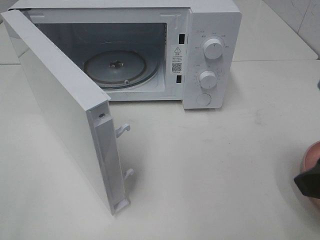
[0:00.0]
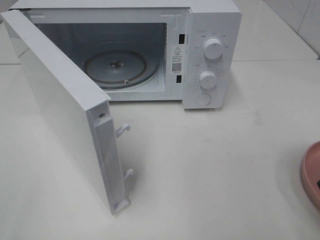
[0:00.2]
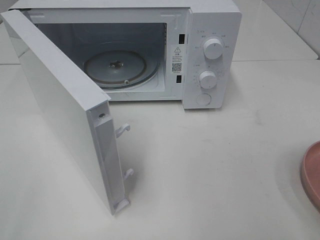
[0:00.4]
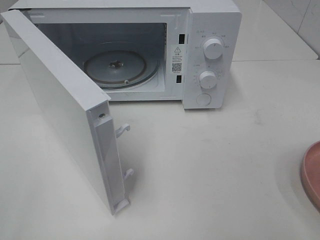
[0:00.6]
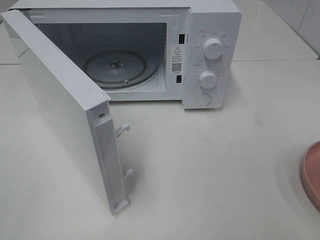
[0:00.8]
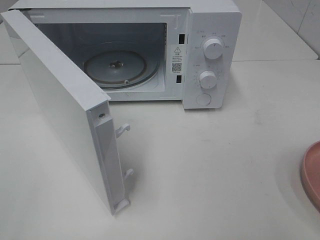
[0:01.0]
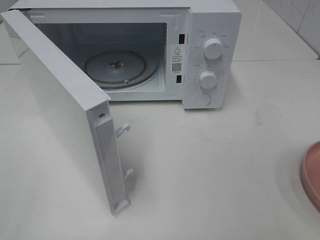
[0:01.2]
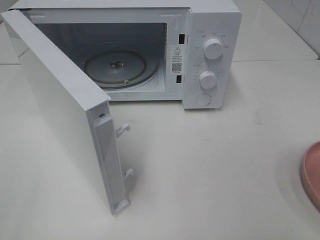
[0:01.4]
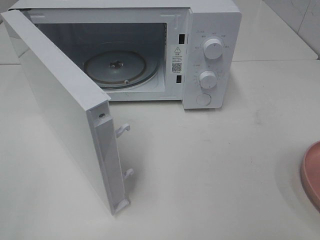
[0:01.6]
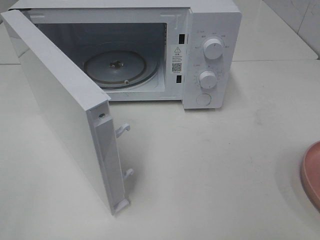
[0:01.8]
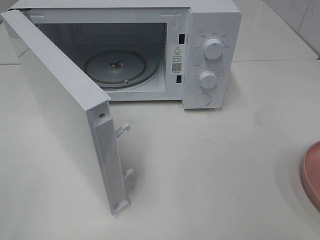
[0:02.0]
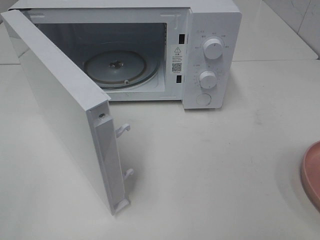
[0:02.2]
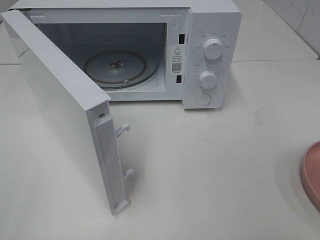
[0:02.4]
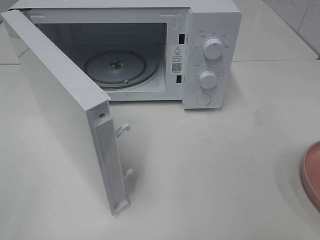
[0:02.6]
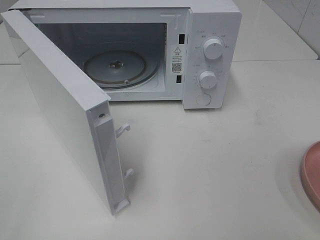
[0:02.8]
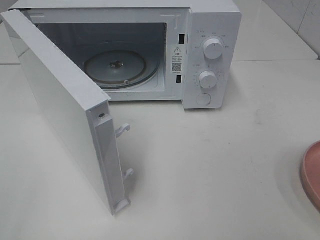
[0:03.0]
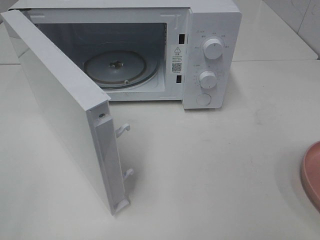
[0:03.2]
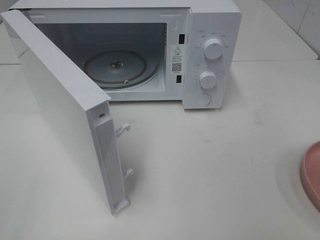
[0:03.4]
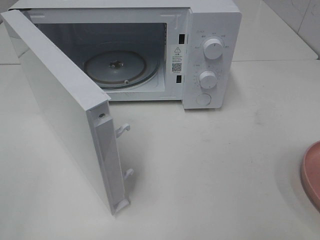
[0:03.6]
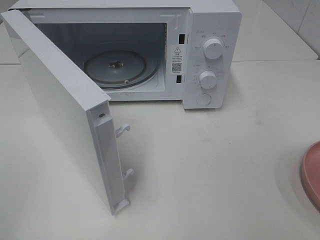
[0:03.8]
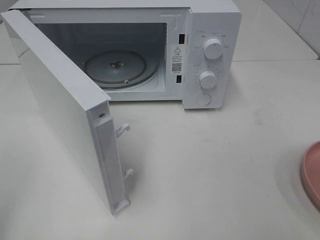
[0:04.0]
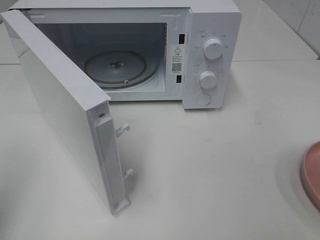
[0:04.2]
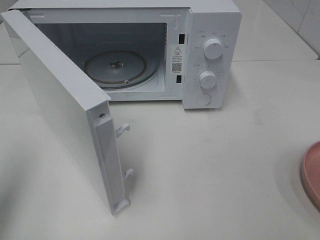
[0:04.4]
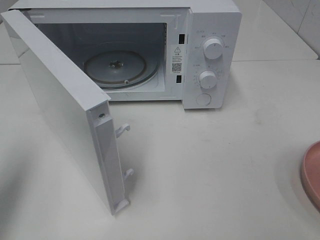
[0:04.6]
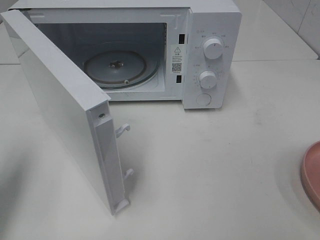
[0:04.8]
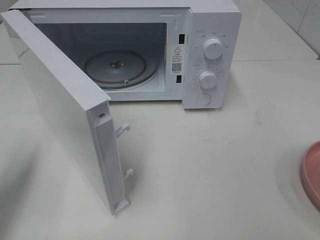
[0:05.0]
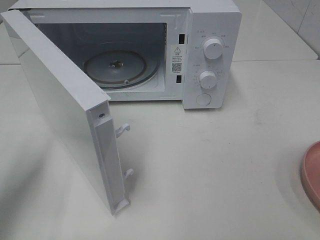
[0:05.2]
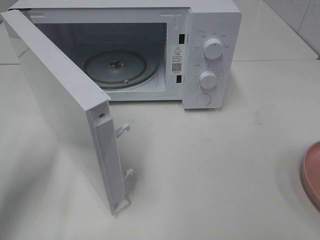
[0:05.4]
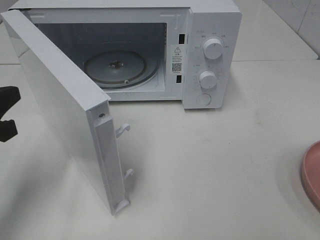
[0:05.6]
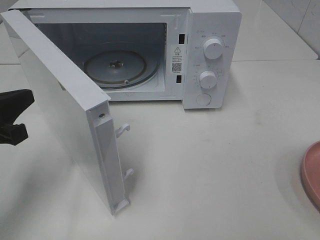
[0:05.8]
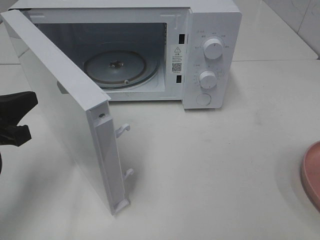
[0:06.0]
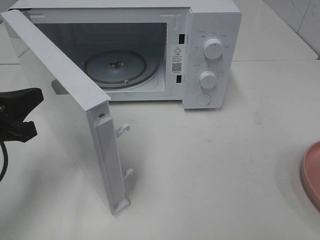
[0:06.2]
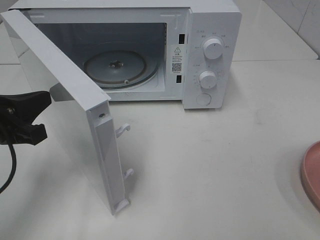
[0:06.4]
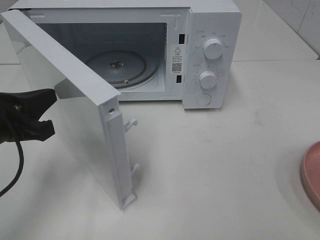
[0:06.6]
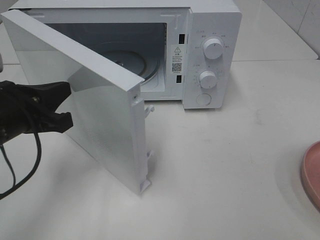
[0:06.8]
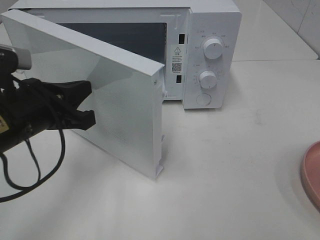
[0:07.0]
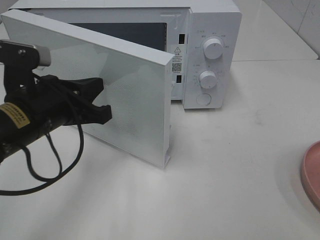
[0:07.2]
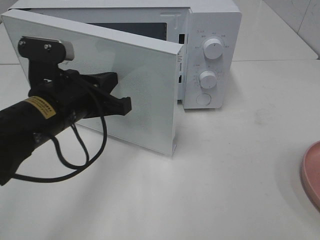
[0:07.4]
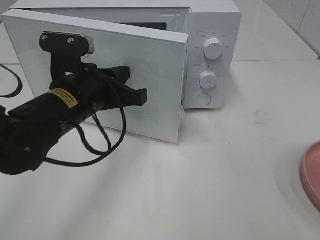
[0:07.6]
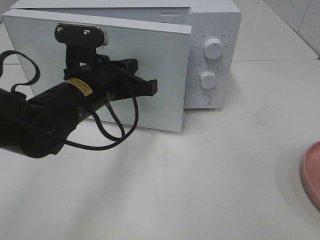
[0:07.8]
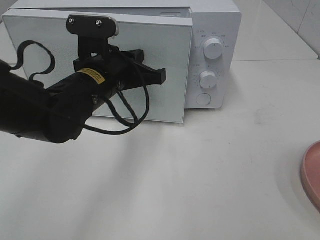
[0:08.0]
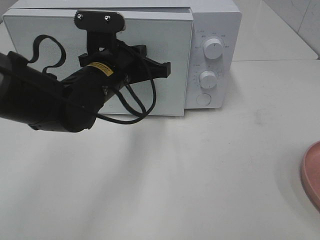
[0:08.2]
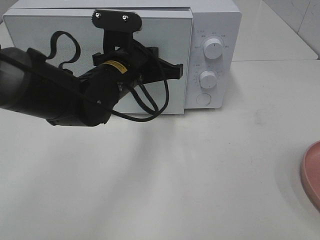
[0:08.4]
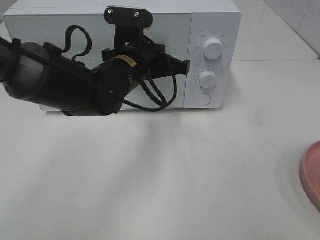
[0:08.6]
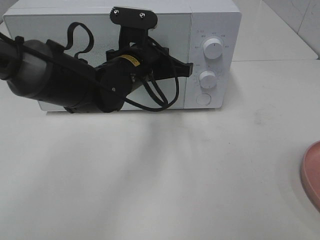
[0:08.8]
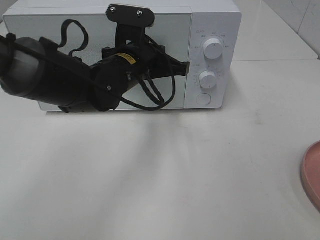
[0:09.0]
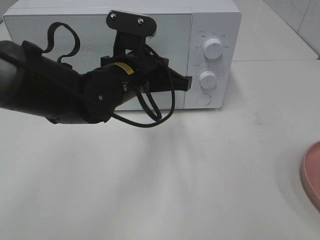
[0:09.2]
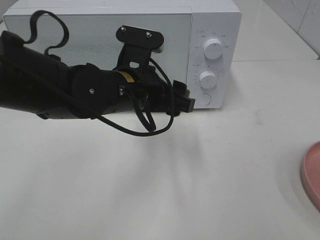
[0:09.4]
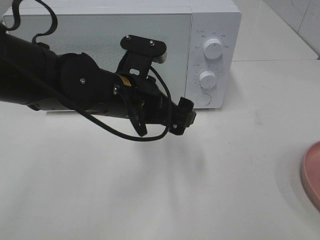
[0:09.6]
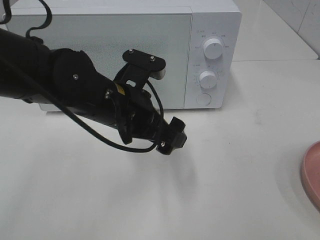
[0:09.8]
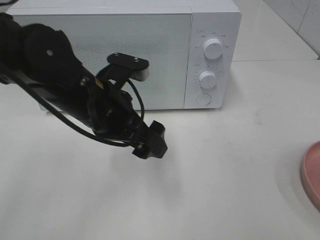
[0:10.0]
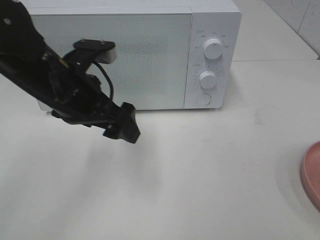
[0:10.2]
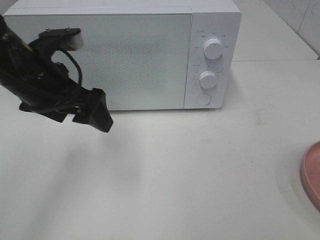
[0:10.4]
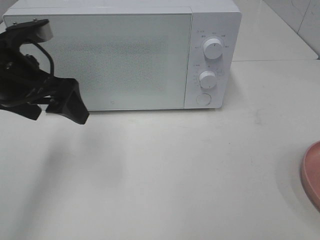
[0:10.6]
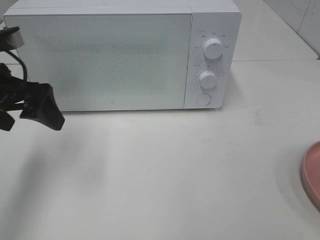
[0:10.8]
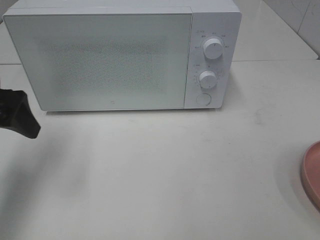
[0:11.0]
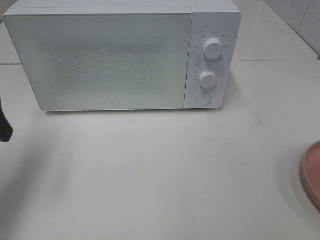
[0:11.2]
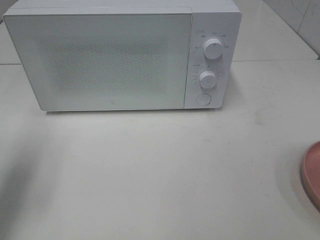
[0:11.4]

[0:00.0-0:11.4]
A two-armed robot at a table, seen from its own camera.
Task of the whole recording: Heat the burger.
Step, 0:00.0 to 0:09.0: Left hand: close the microwave door.
0:00.0 to 0:01.4: The right gripper heads backward and to the right, covering approximately 15 cm.
0:01.4 to 0:02.8: Both grippers stay about where they are.
0:04.2 to 0:05.6: The left gripper shifts roughly 15 cm downward, forward and to the right.
0:05.6 to 0:07.2: The left gripper is displaced to the right by roughly 10 cm.
0:07.2 to 0:08.6: The left gripper heads to the right and forward, covering some 15 cm.
0:08.6 to 0:10.0: The left gripper moves backward, roughly 10 cm, and opens.
0:10.0 to 0:11.4: The left gripper heads to the left, covering some 20 cm.

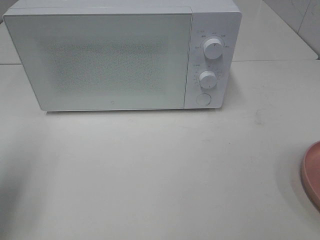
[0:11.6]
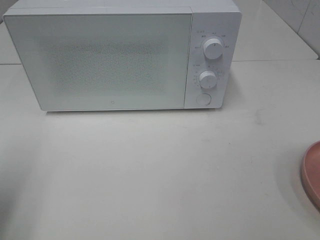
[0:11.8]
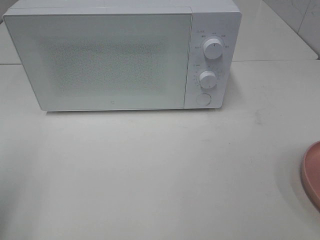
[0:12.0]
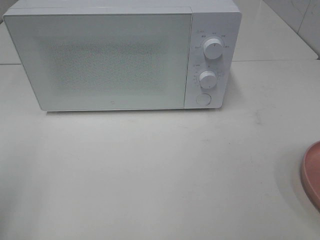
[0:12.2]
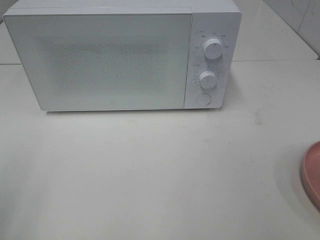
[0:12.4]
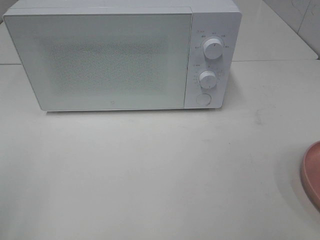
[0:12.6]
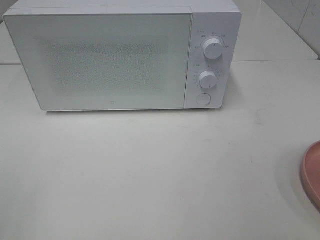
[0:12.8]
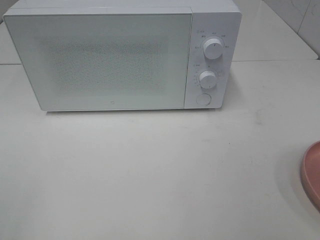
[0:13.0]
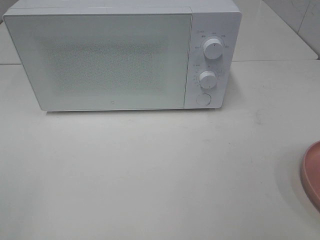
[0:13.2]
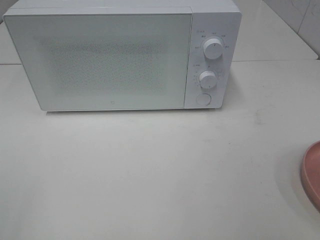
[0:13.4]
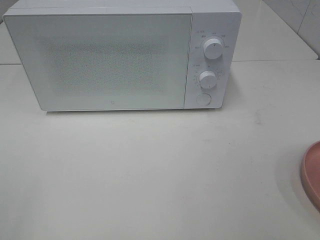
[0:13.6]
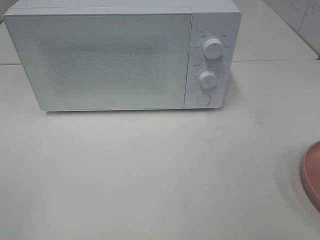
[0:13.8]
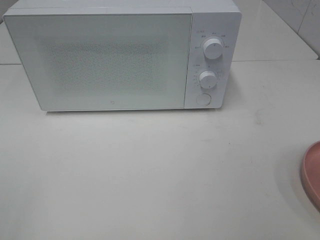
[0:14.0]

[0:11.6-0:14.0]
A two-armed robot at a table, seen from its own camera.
Task of the whole recording: Heat the burger.
0:11.6 to 0:12.8: The left gripper is displaced backward by some 15 cm.

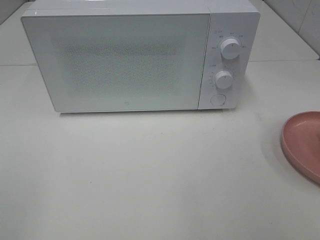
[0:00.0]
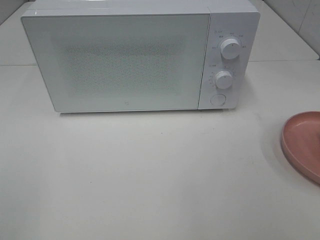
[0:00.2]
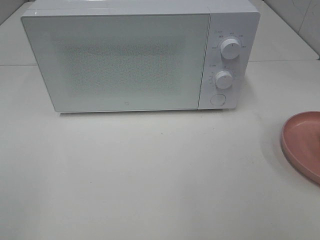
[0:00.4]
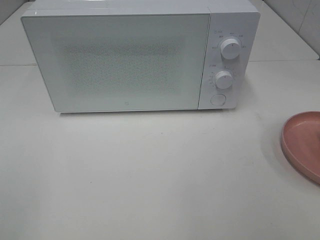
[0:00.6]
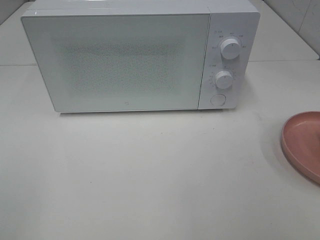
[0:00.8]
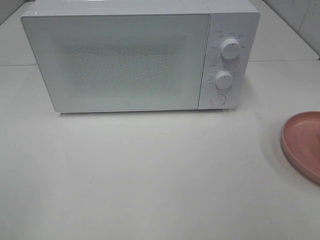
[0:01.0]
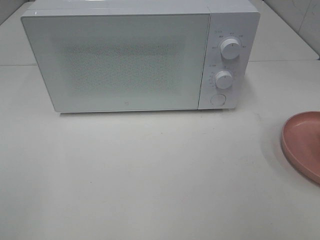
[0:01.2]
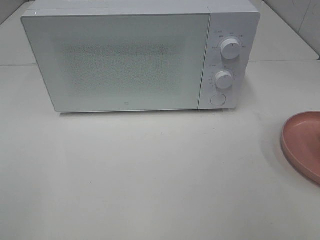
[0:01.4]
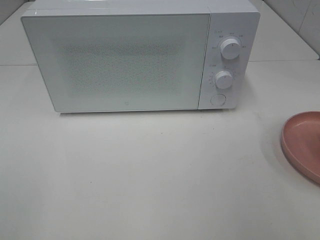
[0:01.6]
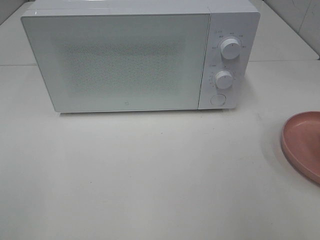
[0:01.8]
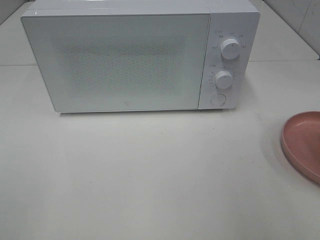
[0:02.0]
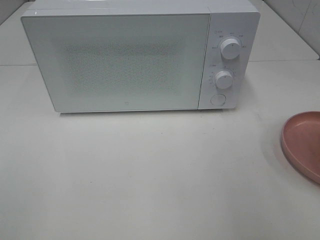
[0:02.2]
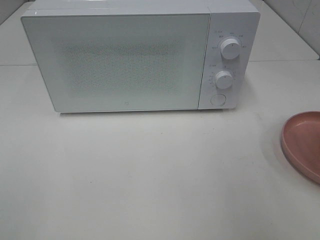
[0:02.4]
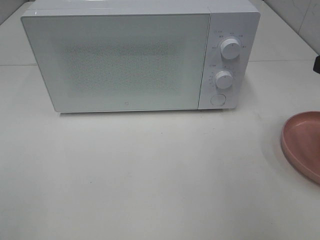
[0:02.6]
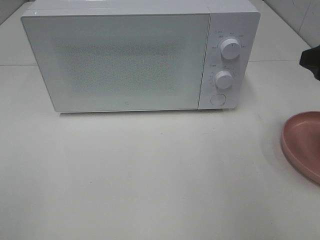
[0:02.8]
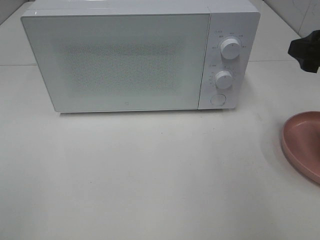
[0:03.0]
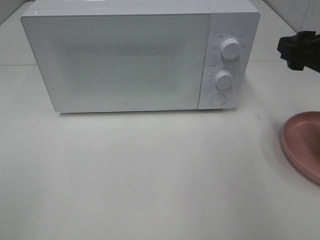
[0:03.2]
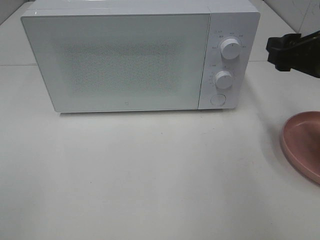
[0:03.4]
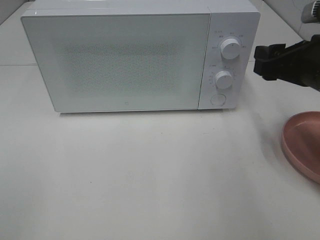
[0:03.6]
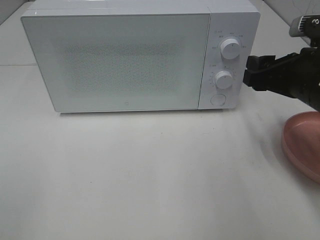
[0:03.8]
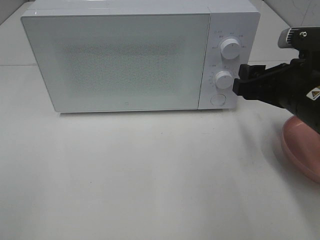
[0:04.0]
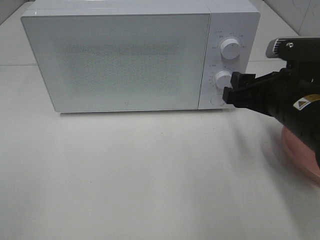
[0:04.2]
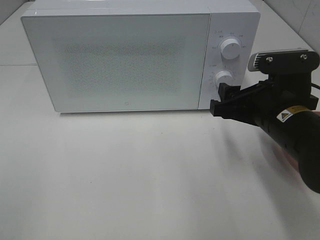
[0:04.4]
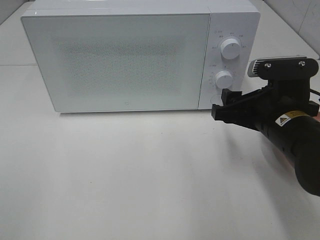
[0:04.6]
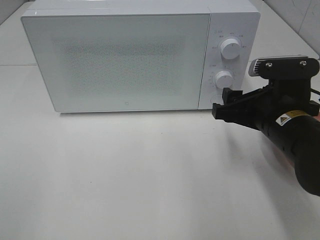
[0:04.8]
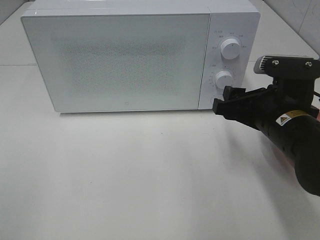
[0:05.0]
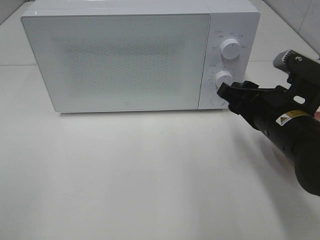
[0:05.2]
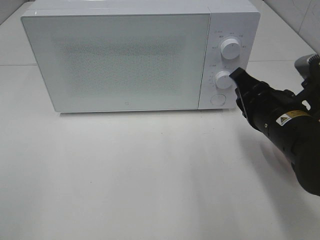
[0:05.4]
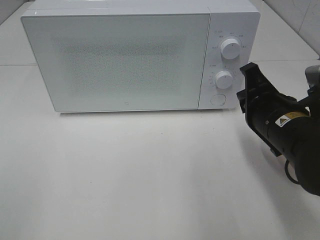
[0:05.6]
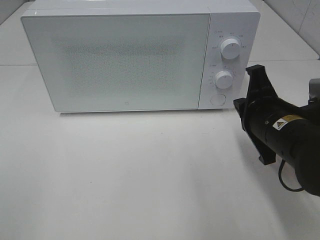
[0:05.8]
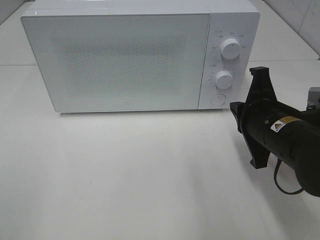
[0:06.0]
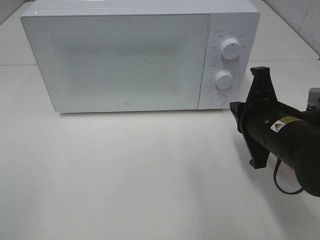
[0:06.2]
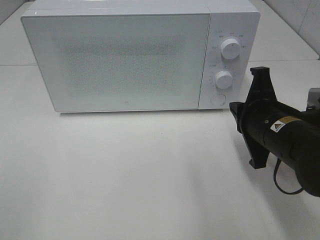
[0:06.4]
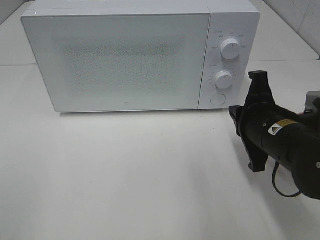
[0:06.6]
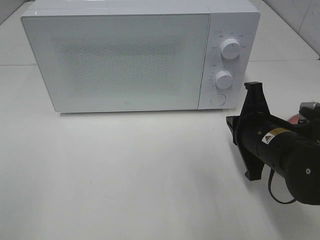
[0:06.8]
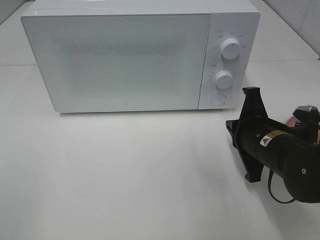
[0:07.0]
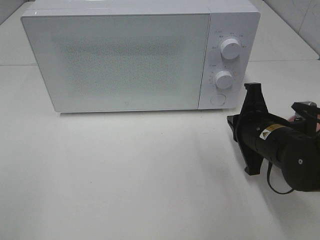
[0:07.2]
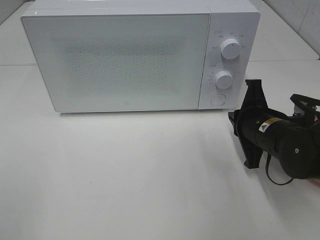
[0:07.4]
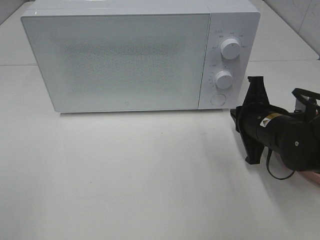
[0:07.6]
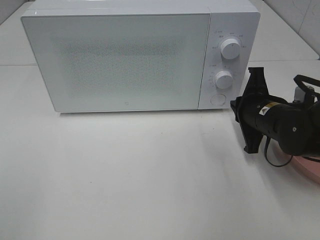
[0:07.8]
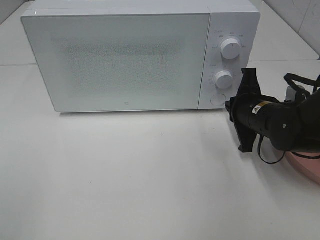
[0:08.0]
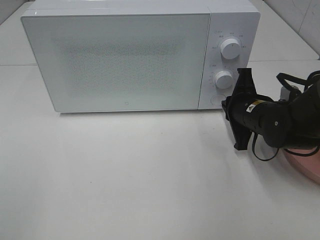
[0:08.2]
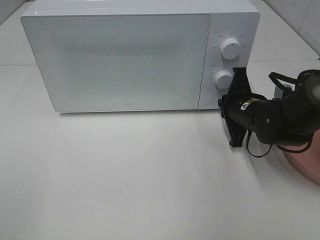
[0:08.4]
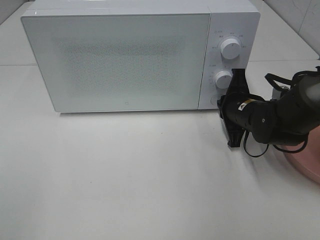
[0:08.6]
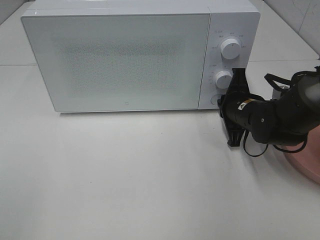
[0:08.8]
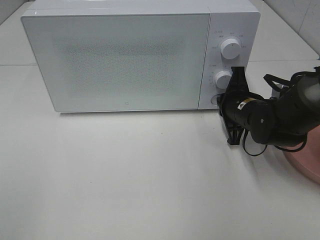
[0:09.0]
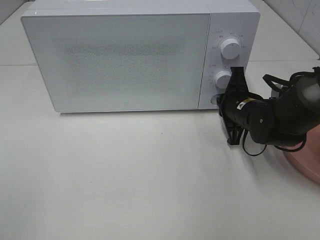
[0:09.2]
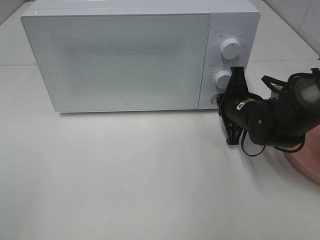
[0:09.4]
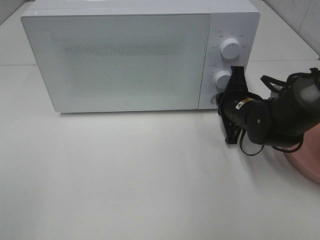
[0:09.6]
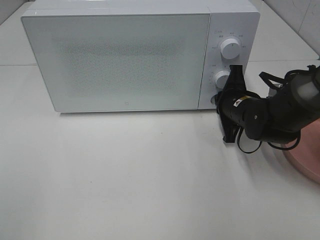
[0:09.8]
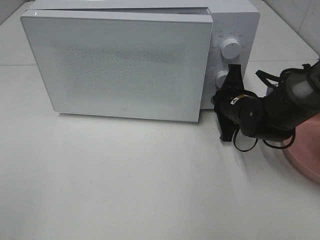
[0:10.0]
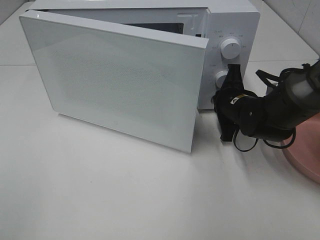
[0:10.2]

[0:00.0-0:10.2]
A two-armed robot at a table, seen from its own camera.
Task of the whole recording: Heat the burger.
0:01.4 to 0:03.0: The right gripper is displaced forward by approximately 20 cm.
0:03.0 to 0:04.4: The right gripper shifts about 15 cm to the left and downward.
0:04.4 to 0:05.8: The right gripper closes its fingers.
0:05.8 to 0:07.2: The grippers move only a little.
0:07.2 to 0:08.8: The right gripper heads forward, covering roughly 10 cm.
0:08.8 to 0:10.2: There are only small adjustments of the grippers.
